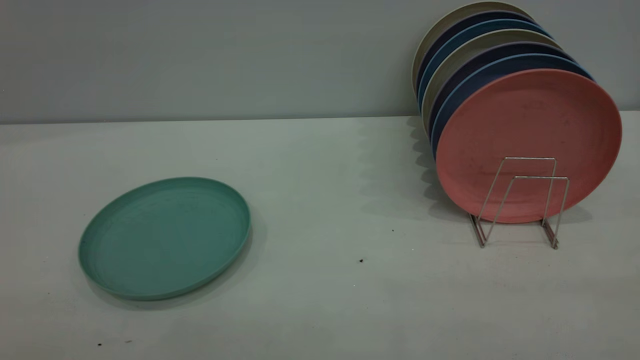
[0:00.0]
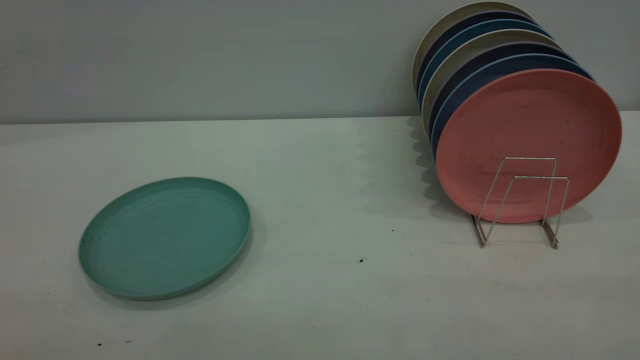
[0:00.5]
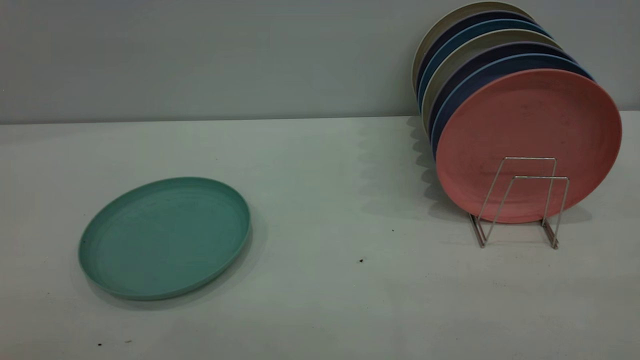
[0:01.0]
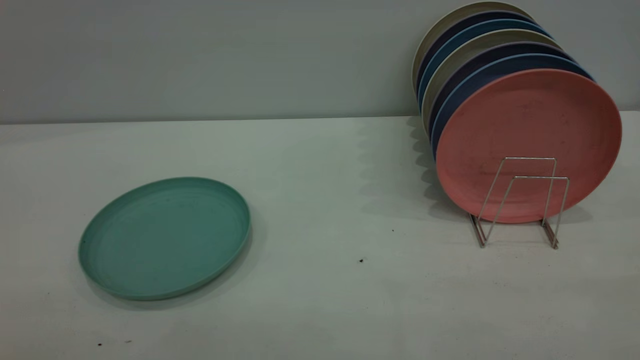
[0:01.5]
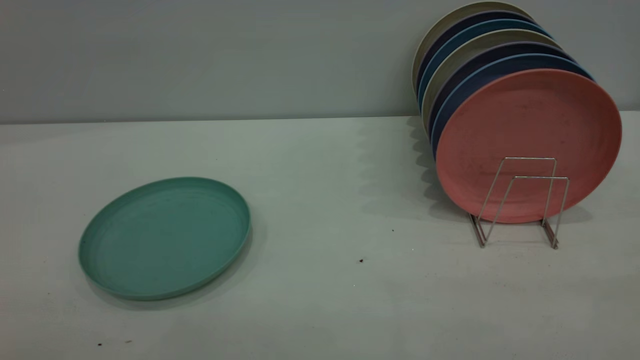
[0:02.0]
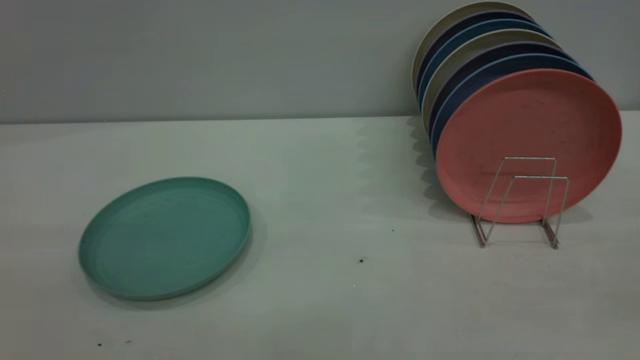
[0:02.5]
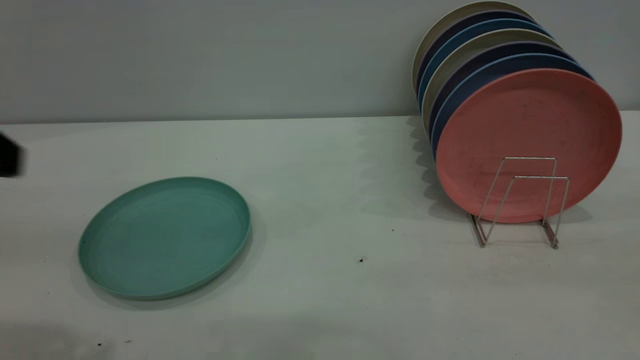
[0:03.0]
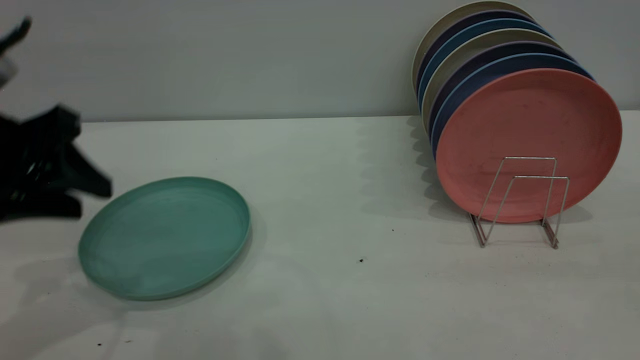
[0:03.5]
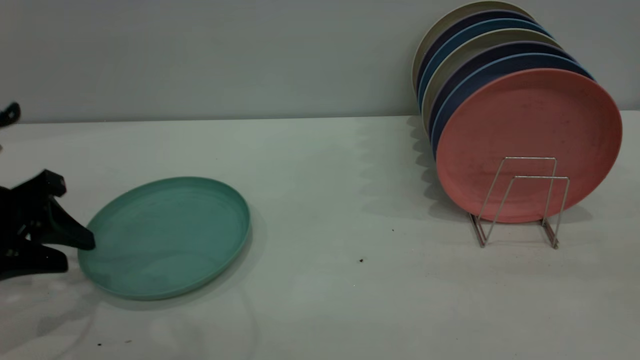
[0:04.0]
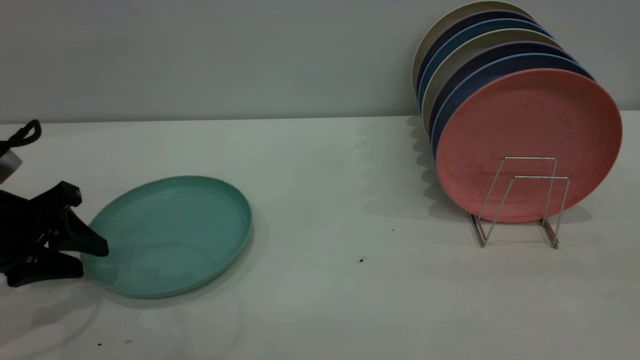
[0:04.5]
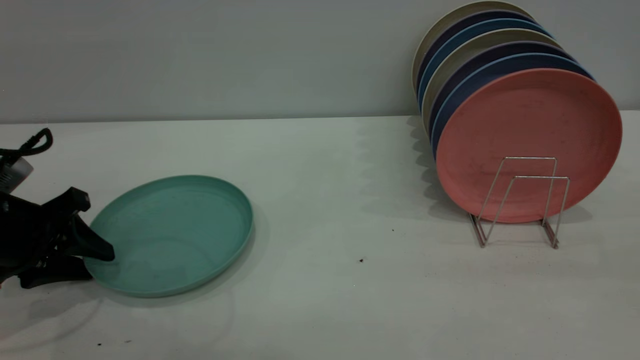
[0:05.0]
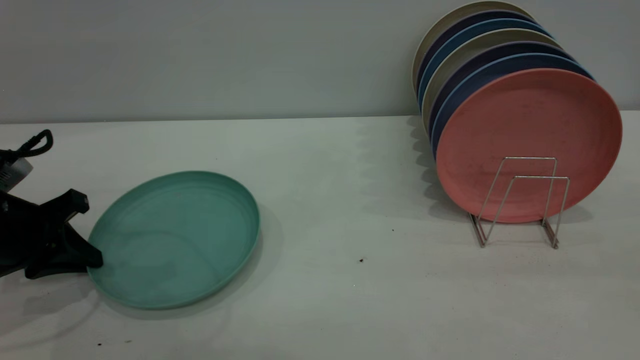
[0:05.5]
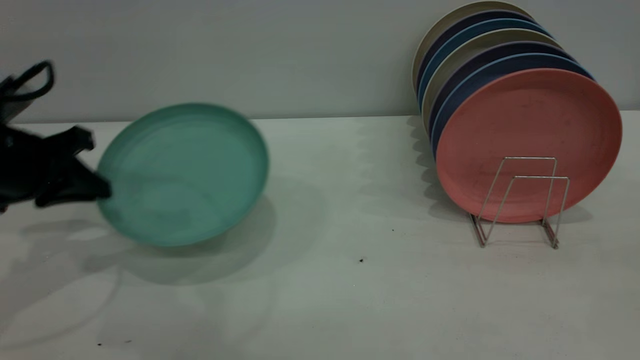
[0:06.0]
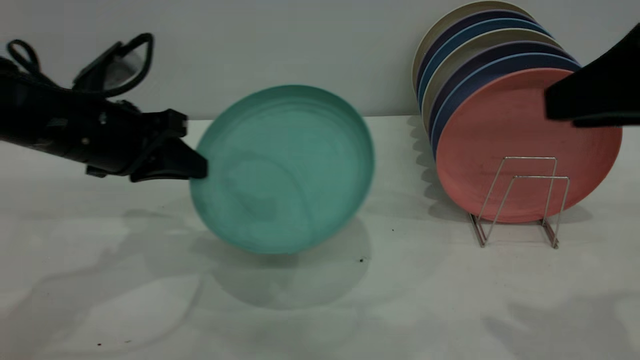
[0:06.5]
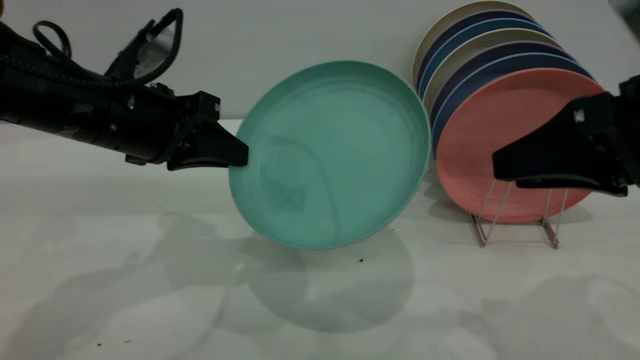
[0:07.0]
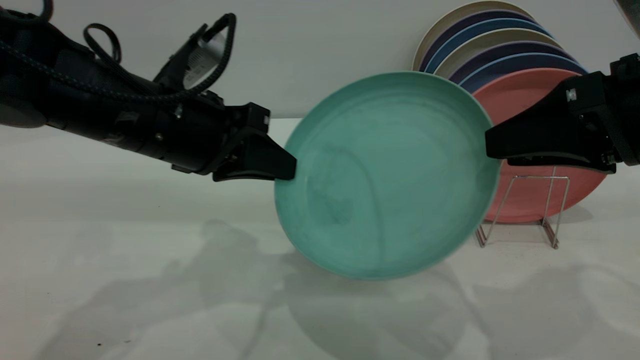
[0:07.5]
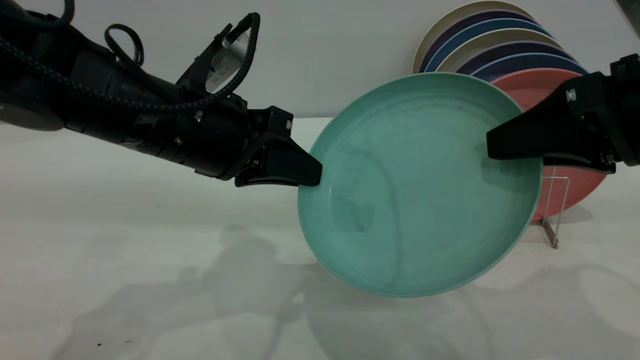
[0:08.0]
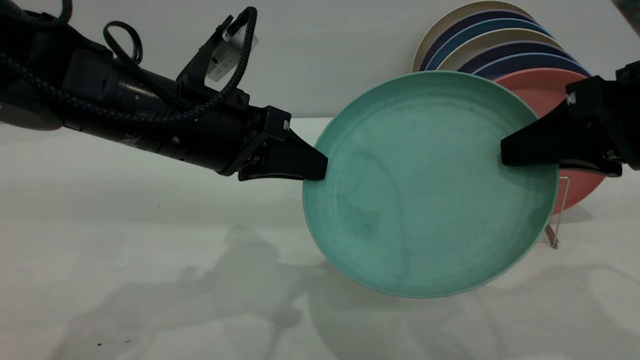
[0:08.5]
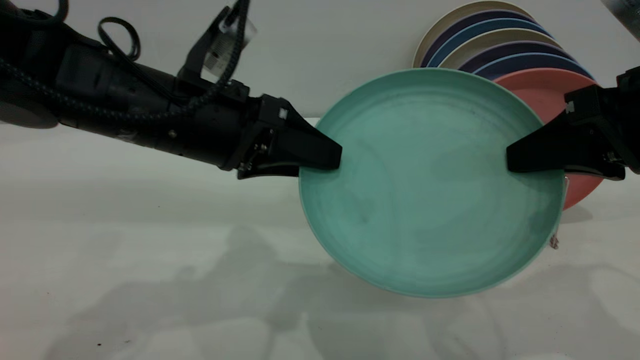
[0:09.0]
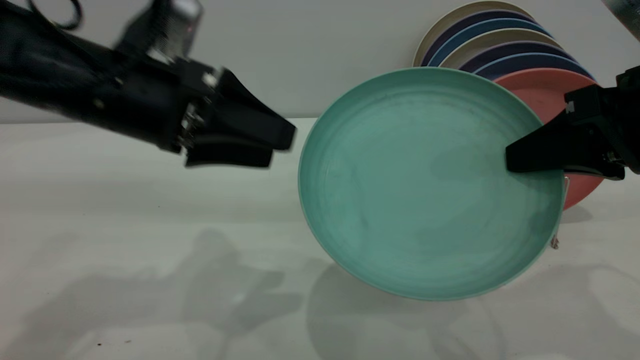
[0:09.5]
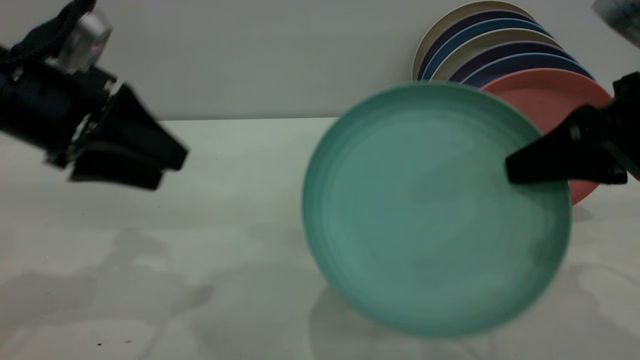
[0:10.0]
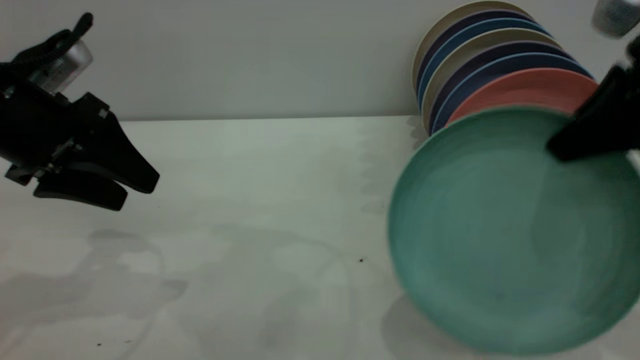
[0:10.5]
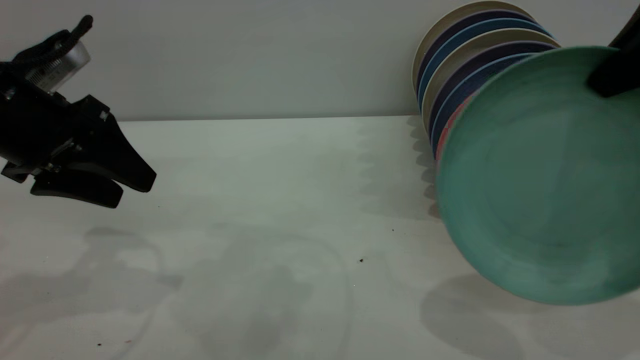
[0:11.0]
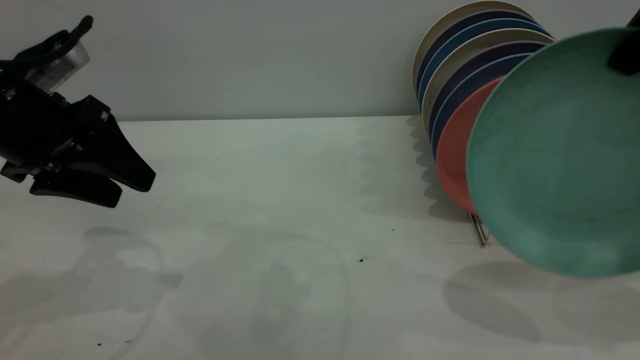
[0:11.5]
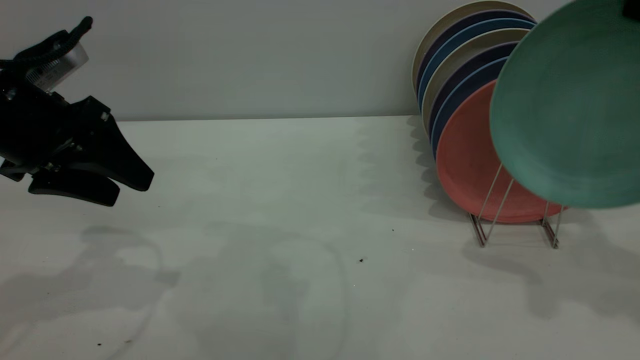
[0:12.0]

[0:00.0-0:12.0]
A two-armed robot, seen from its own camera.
Task of the whole recording: the left gripper grasp the green plate, the left gripper pass the green plate to the right gripper, and the right gripper place the green plate on the plate rack.
Step, 0:00.0 to 0:05.5: Pick up the plate with the left gripper.
Step, 0:06.0 to 0:09.5: Pass the plate from the left gripper to the right gripper.
0:00.0 to 0:02.0: Both grippers stay about where they are.
0:02.0 to 0:04.0: The left gripper heads forward and downward, covering approximately 35 cm.
0:04.0 to 0:06.0: The left gripper is displaced forward by some 5 cm, and closes up.
0:06.0 to 0:08.0: The left gripper goes approximately 20 cm to the right. Meanwhile the right gripper shifts approximately 15 cm downward and forward.
0:08.0 to 0:10.0: The right gripper closes, while the left gripper shifts approximately 10 cm to the left, and opens.
0:10.0 to 0:12.0: The right gripper shifts approximately 15 cm upward and forward.

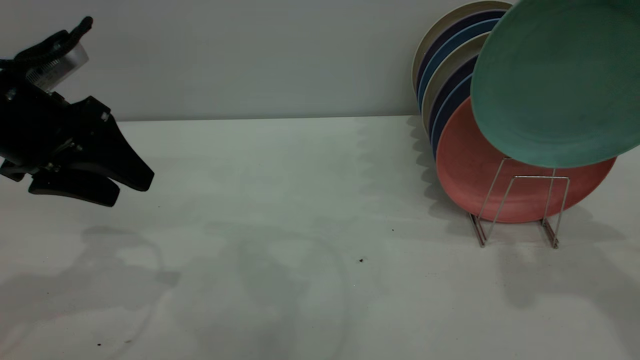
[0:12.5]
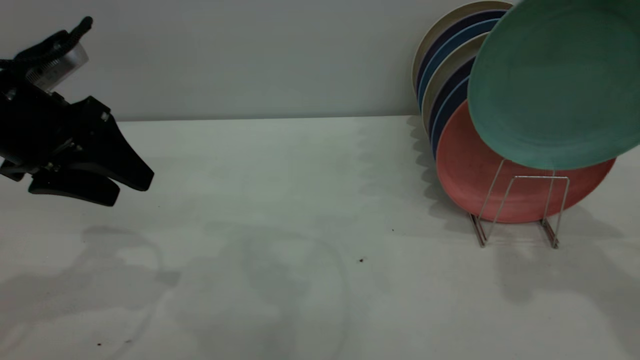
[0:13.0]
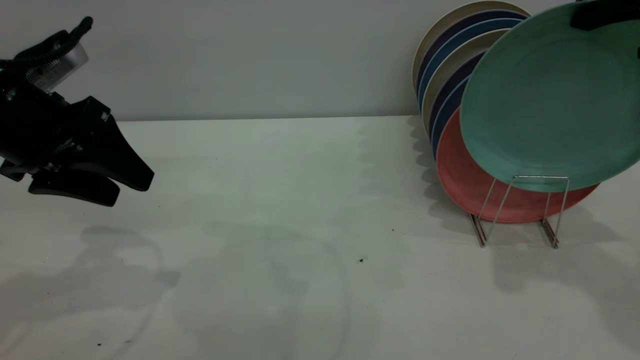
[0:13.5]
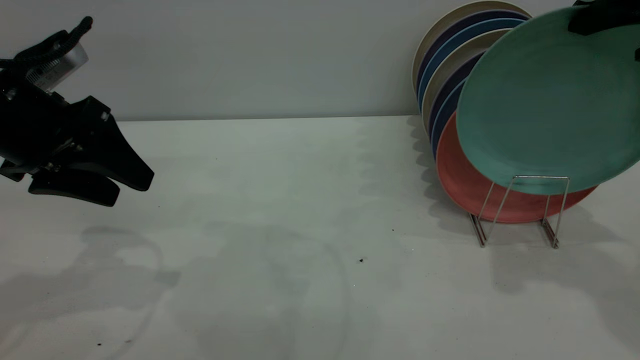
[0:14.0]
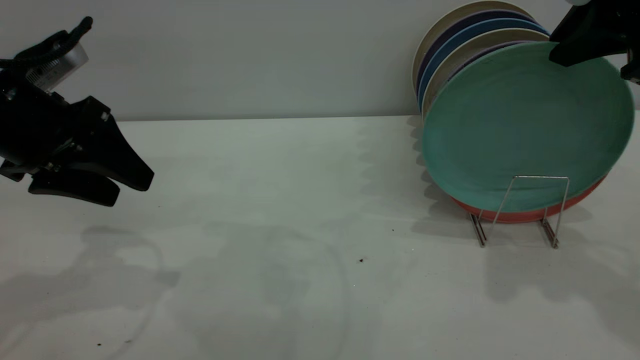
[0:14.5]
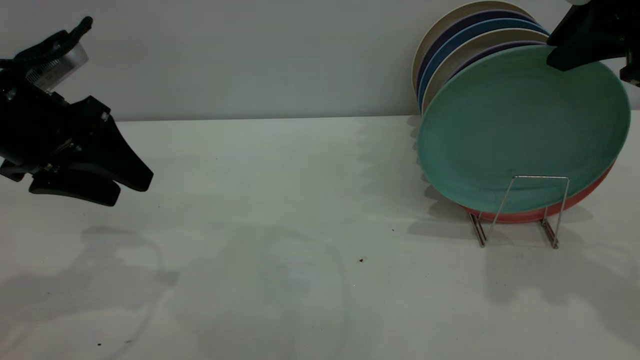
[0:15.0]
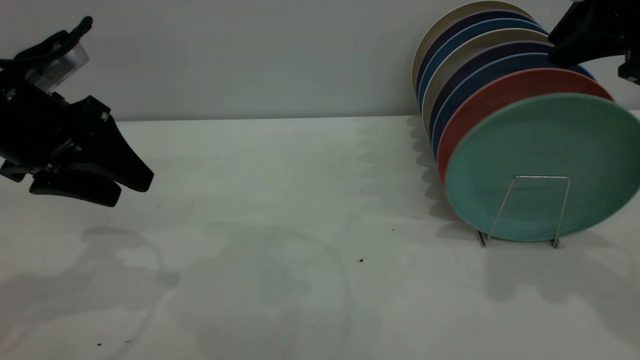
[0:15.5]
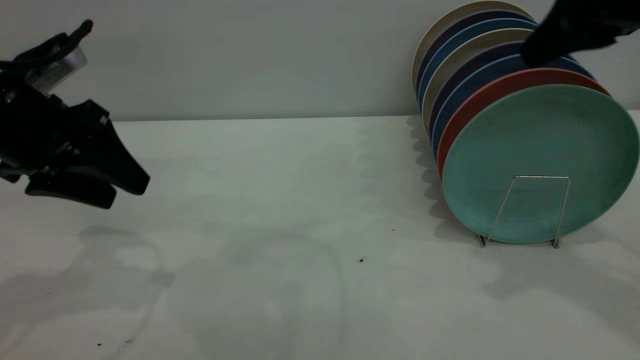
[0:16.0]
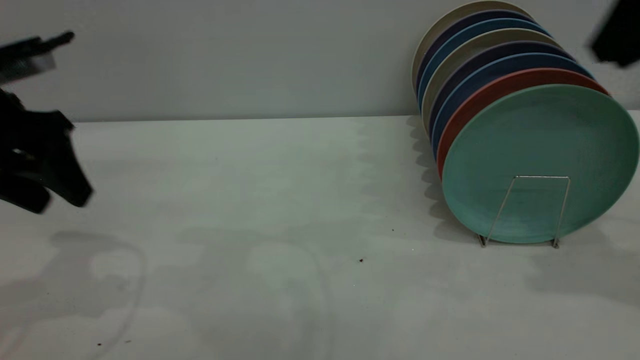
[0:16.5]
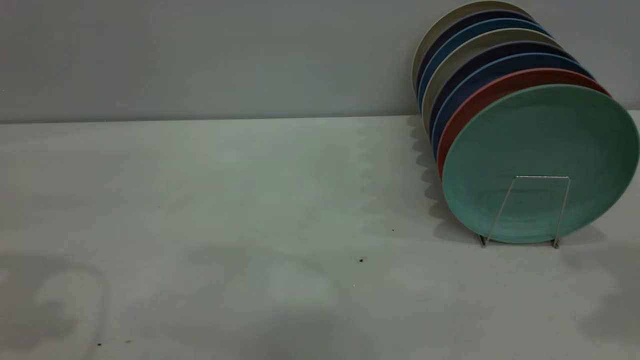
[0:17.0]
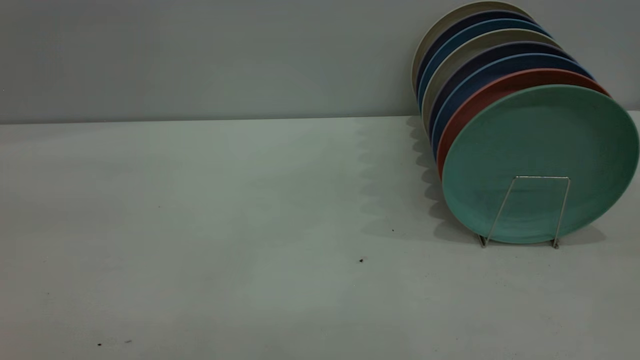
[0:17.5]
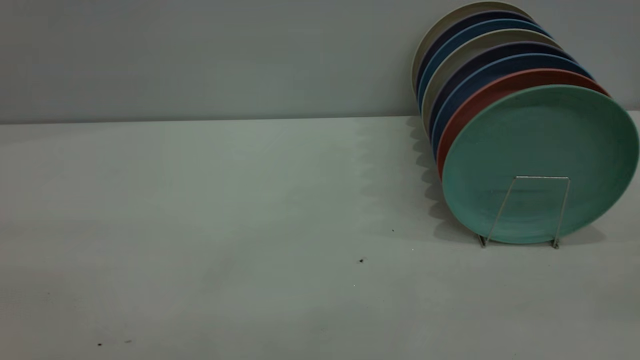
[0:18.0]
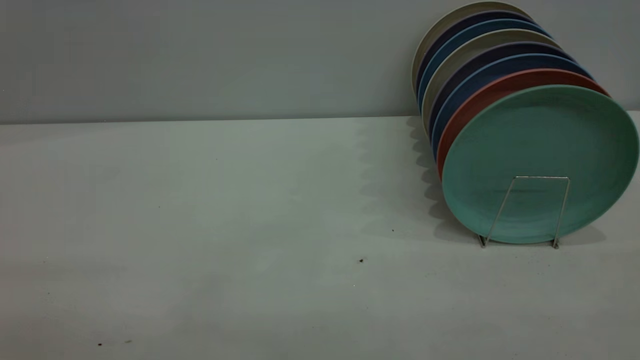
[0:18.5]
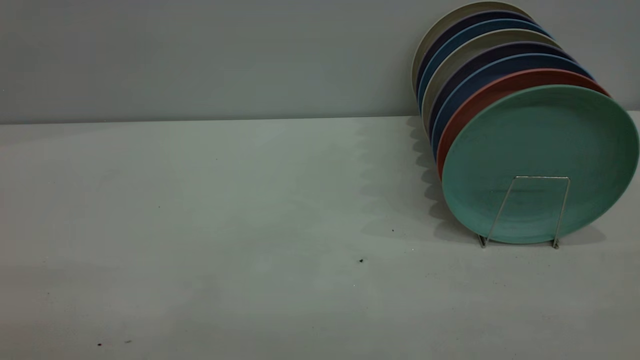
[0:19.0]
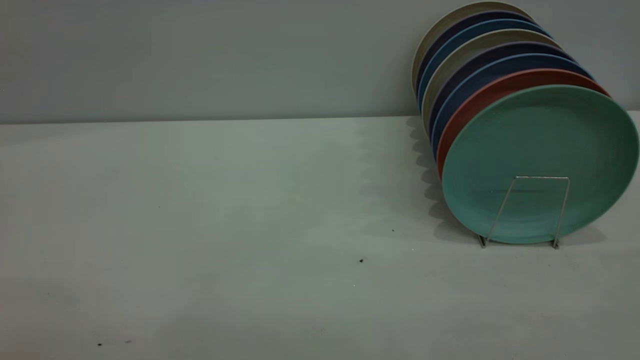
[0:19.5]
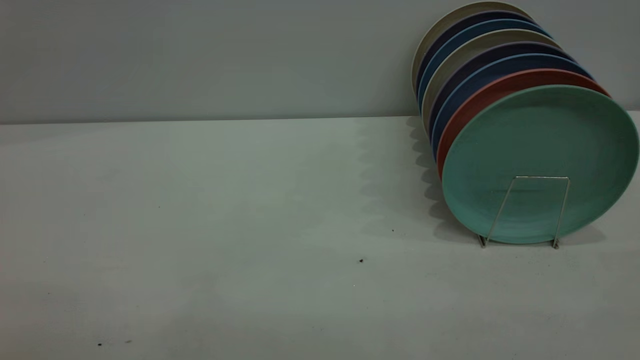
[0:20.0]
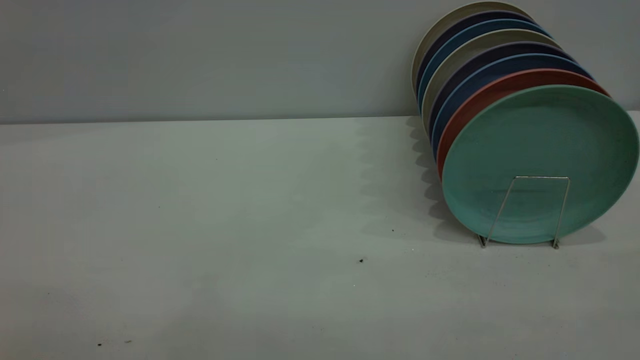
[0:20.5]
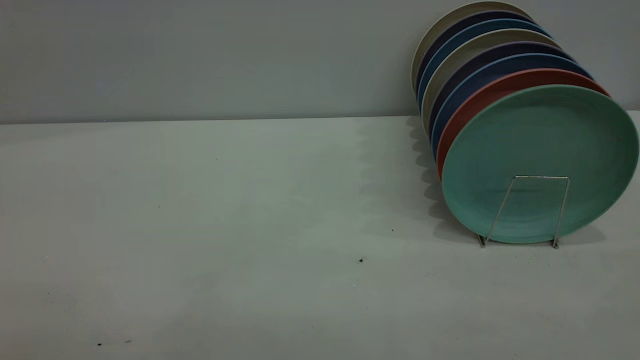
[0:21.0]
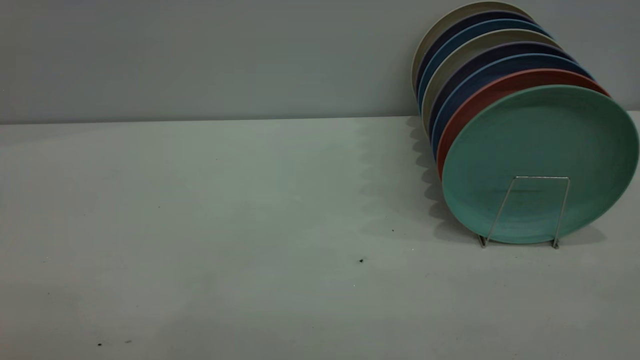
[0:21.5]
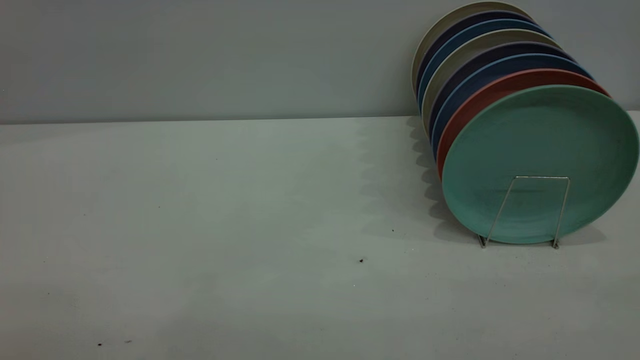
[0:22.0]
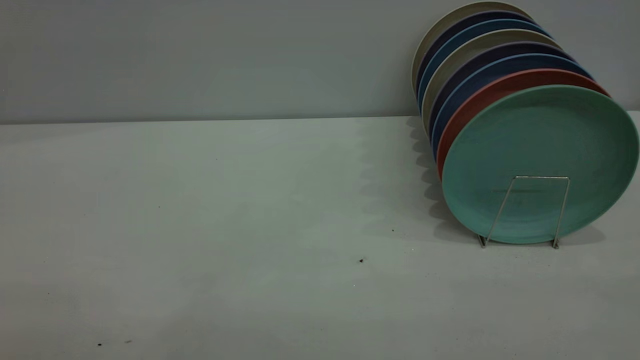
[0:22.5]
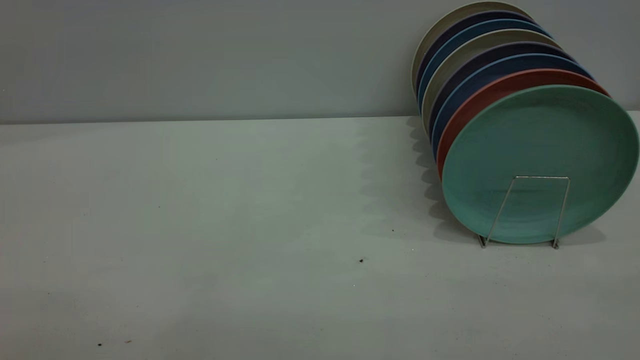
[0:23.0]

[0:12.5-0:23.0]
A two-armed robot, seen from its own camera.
Task of the whole recording: the left gripper grasp the green plate, the left gripper pass the green plate to the right gripper, and the right gripper place the green plate on the plate rack.
Step, 0:12.5 to 0:16.0: Place the plate on the shelf.
0:12.5 to 0:14.5: The grippers move only a little.
0:16.5 to 0:19.0: The two grippers go roughly 30 cm backward.
